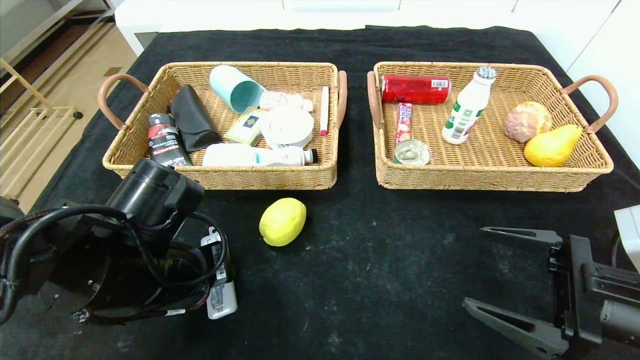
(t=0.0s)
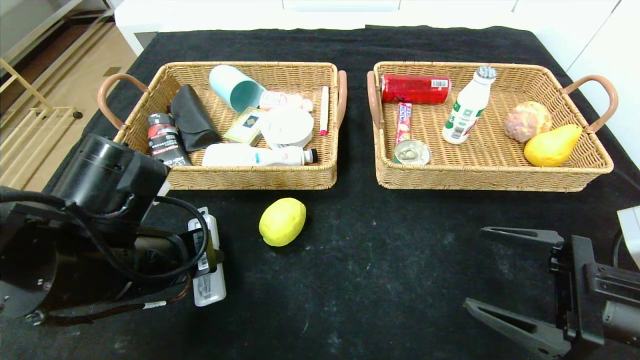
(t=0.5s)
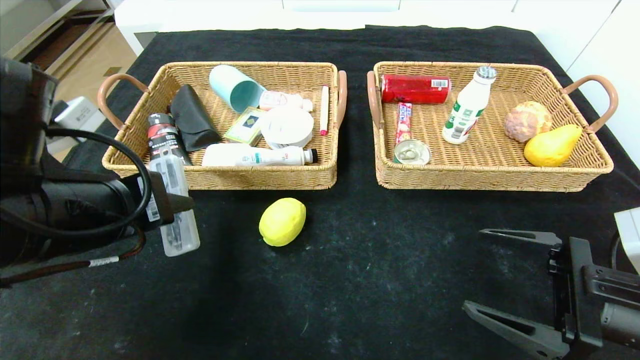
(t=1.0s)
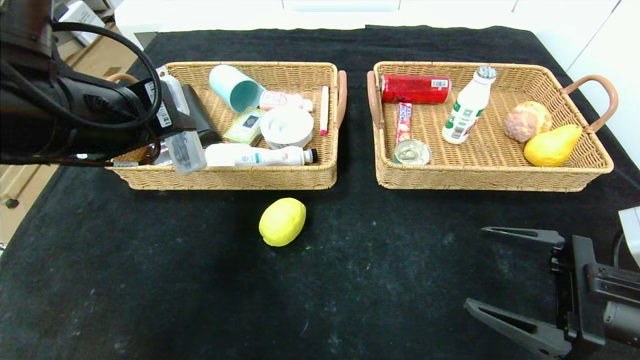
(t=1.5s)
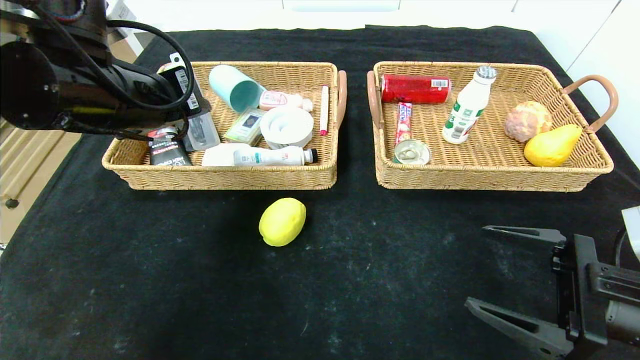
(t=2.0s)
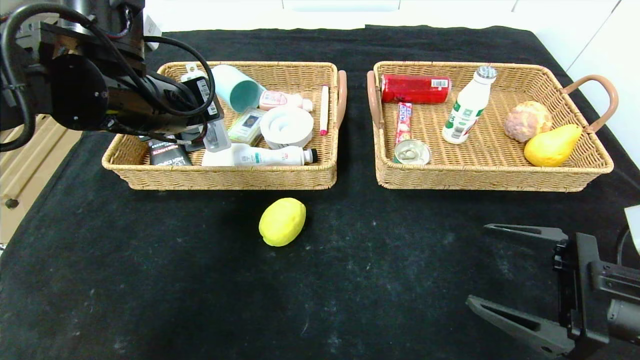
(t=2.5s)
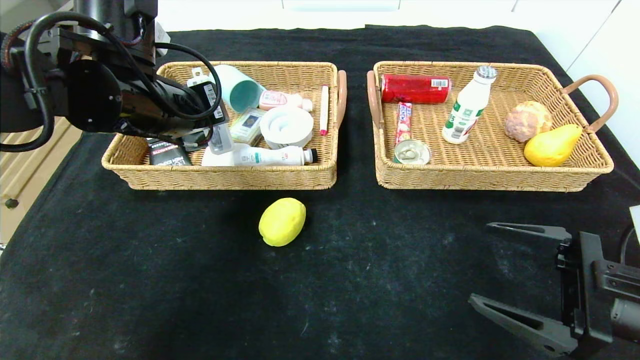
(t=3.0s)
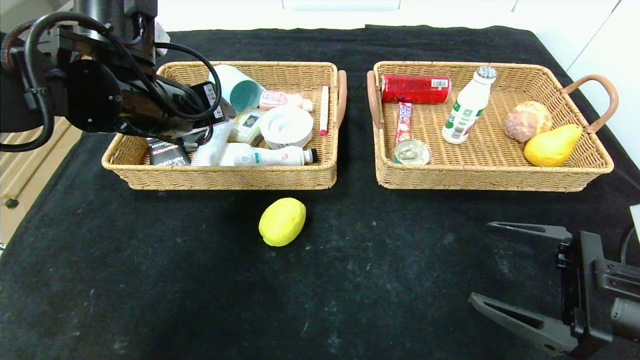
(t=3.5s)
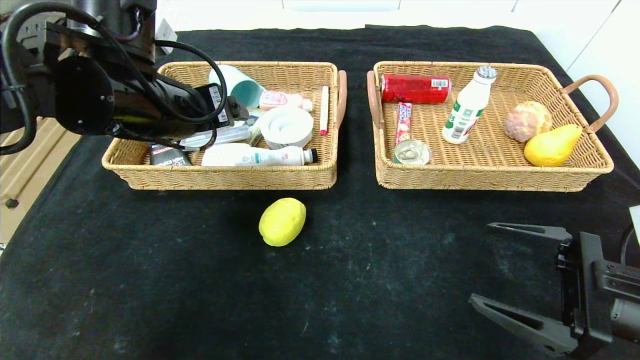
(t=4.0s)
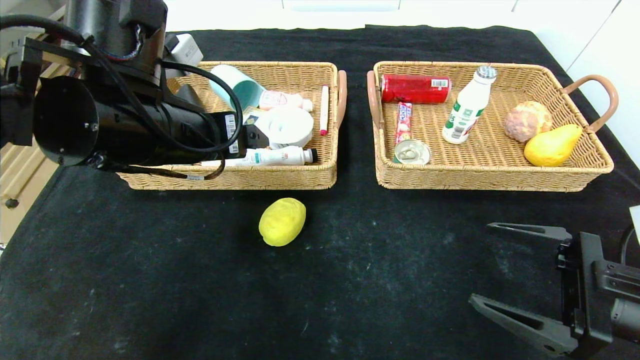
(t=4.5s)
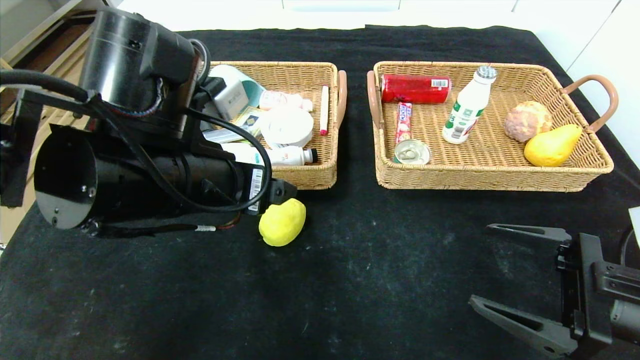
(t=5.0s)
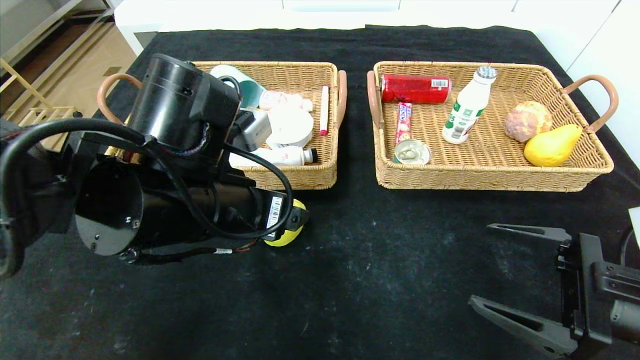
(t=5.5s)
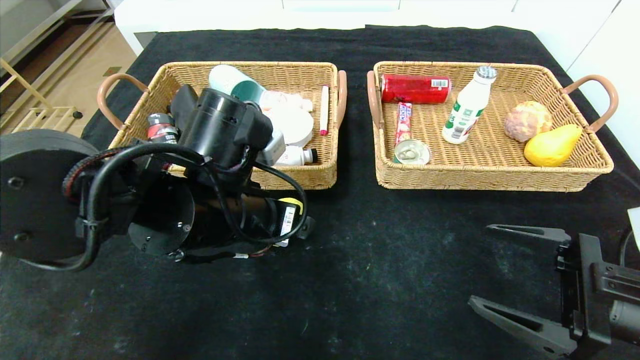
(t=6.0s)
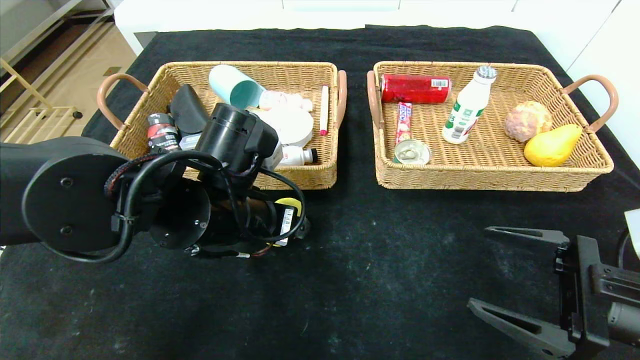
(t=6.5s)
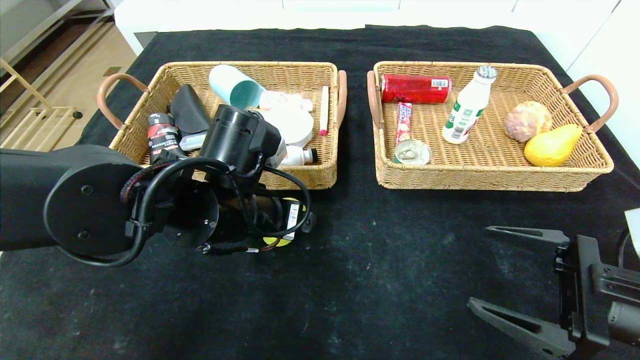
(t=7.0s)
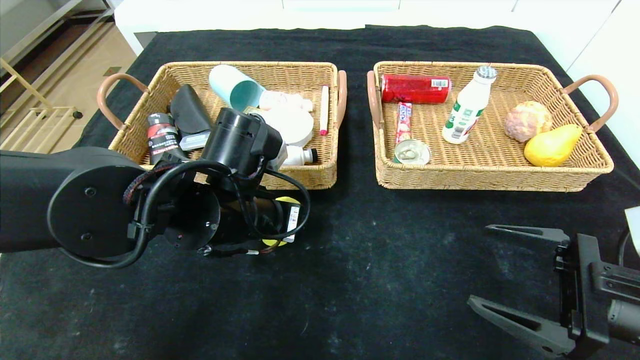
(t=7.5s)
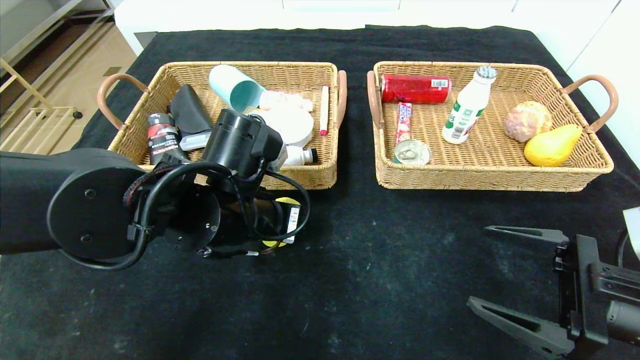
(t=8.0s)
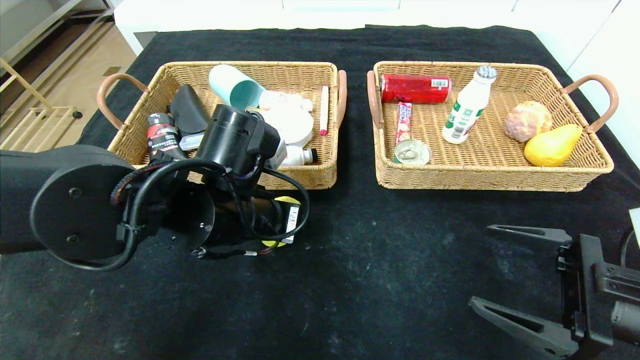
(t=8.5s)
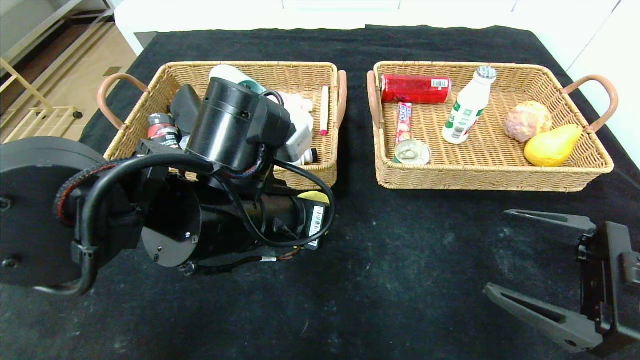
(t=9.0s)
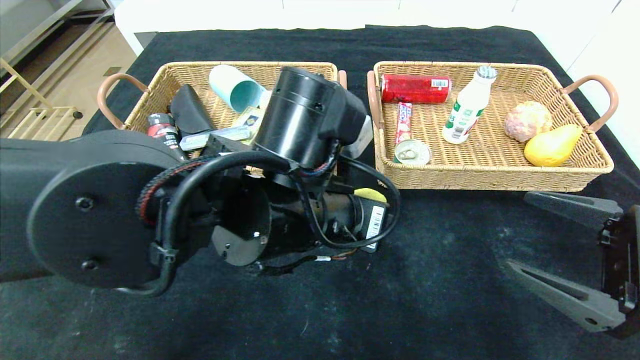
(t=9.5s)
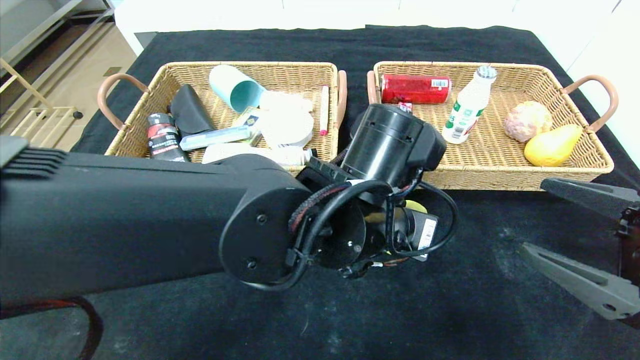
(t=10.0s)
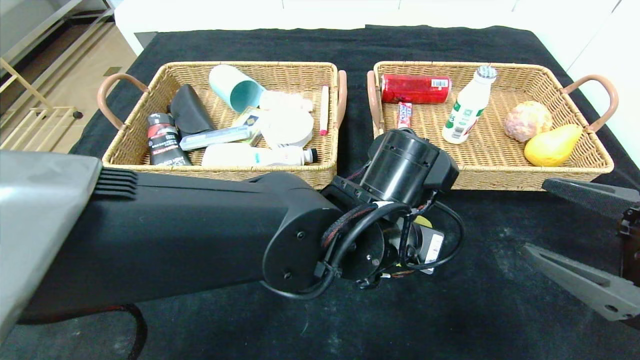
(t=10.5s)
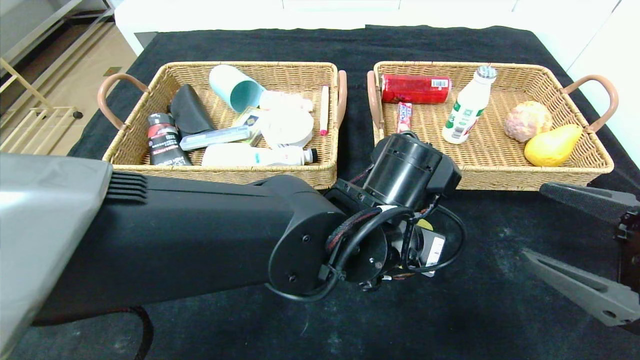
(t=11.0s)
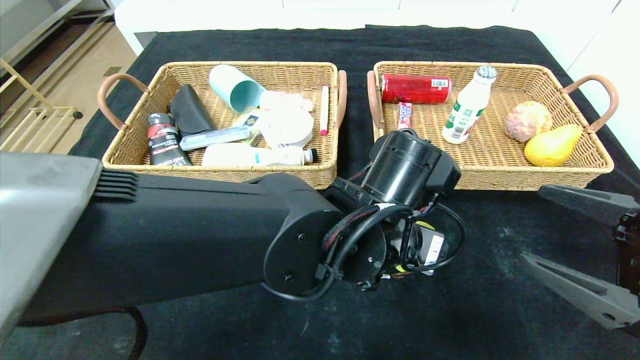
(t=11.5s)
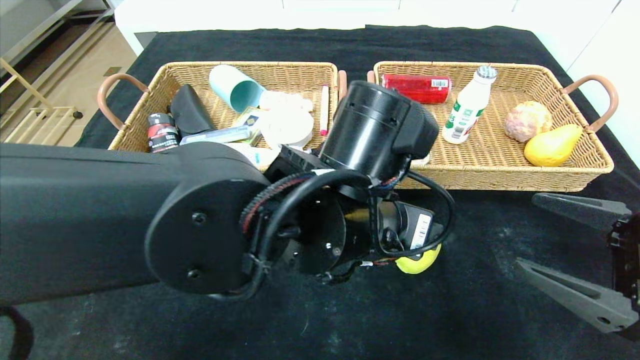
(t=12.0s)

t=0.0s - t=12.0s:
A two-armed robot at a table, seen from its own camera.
Step, t=0.0s - t=3.5s: Grasp the compass and put it in the left basket.
Step, t=4.0s - t=11.5s: Place the lemon and put it in the center of the table.
t=0.0s - t=2.0s: The left gripper moves upward and forward, some 15 cm.
t=2.0s - t=4.0s: The left gripper opens.
t=4.0s - t=6.0s: The left gripper is displaced downward, to the right and backward by approximately 10 cm.
t=6.0s - t=8.0s: The left gripper closes up.
t=8.0s - t=10.0s: The left gripper shifts some 15 cm to the right; the right gripper ends up approximately 5 cm from where it was.
t=10.0s - t=12.0s: The left gripper opens.

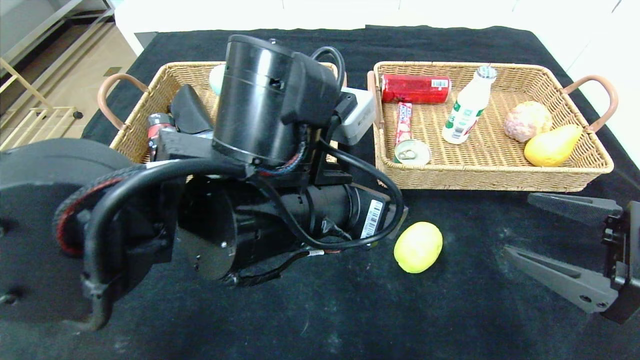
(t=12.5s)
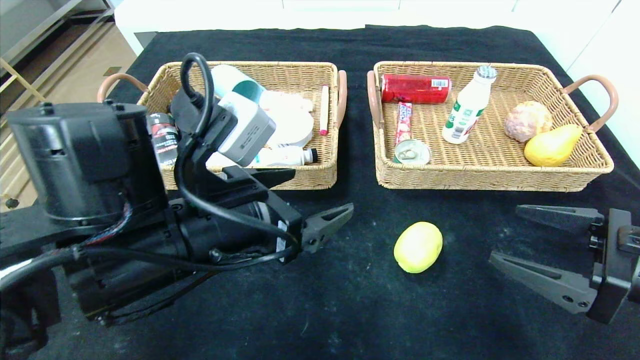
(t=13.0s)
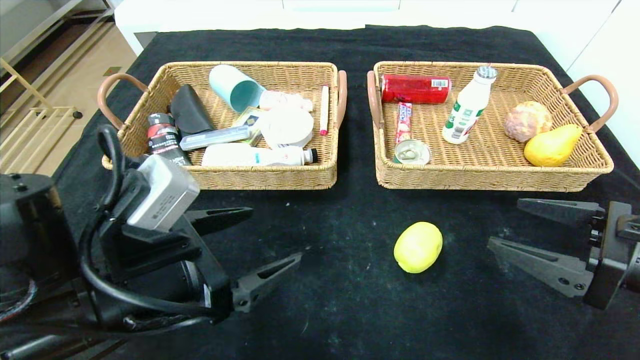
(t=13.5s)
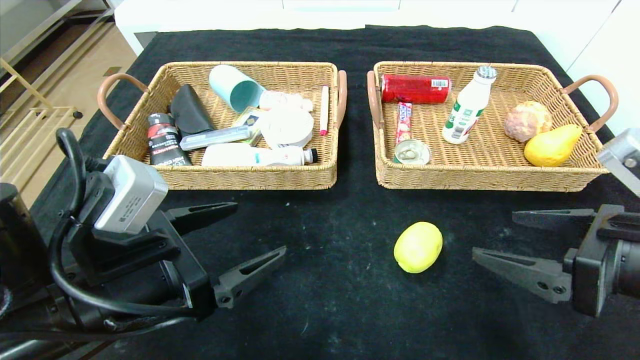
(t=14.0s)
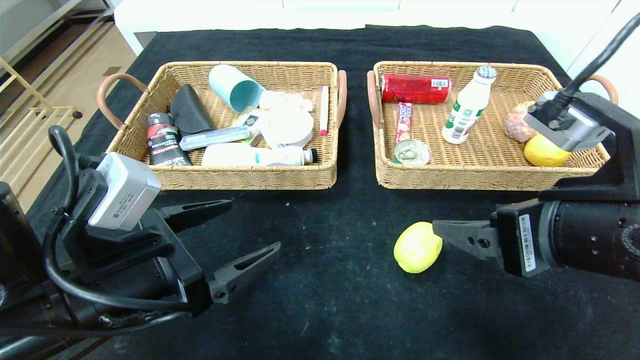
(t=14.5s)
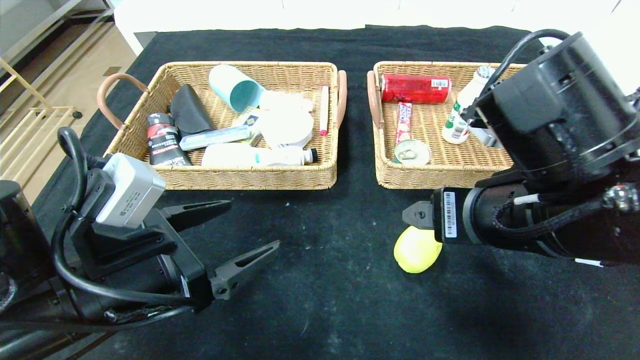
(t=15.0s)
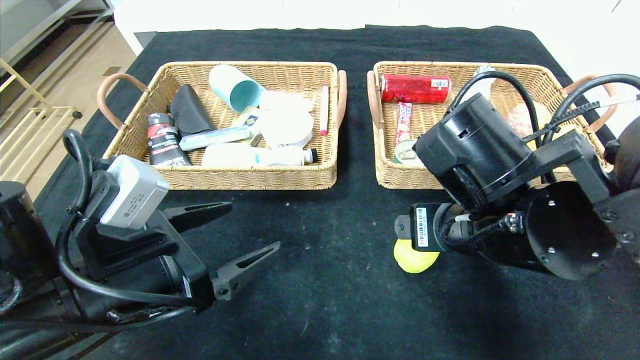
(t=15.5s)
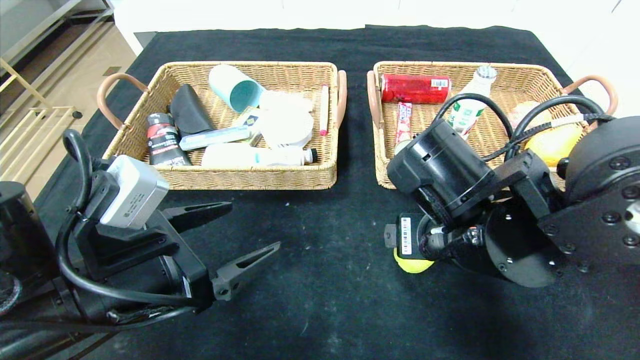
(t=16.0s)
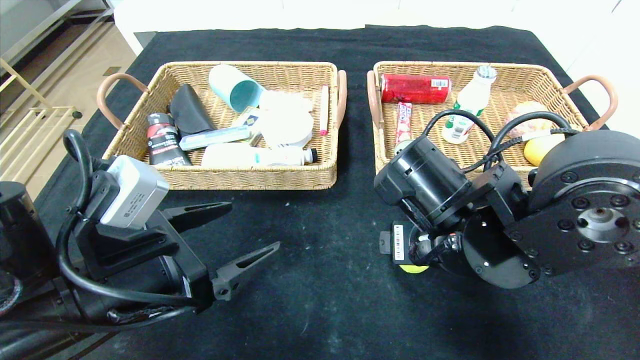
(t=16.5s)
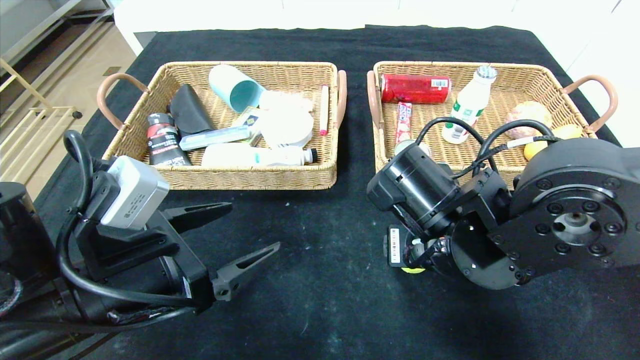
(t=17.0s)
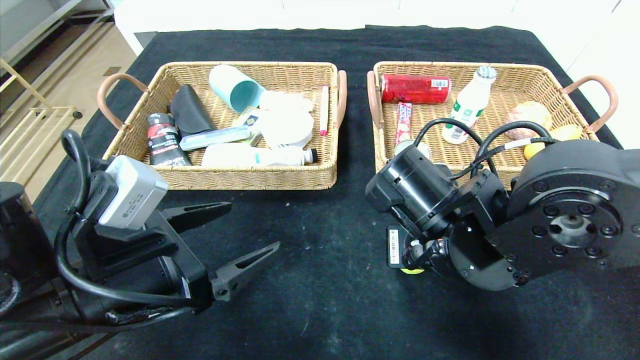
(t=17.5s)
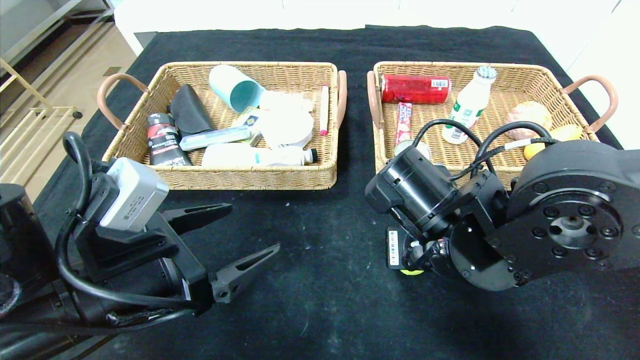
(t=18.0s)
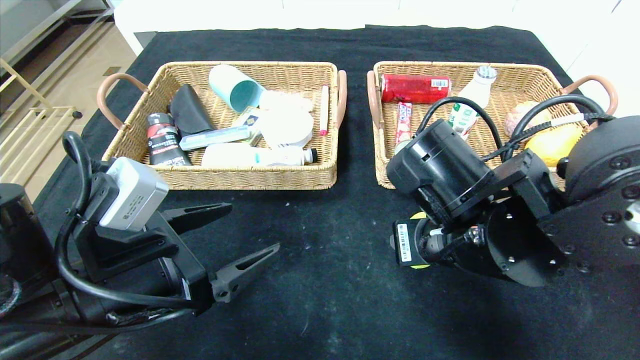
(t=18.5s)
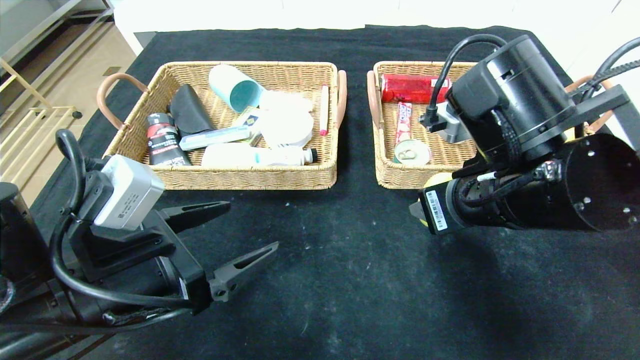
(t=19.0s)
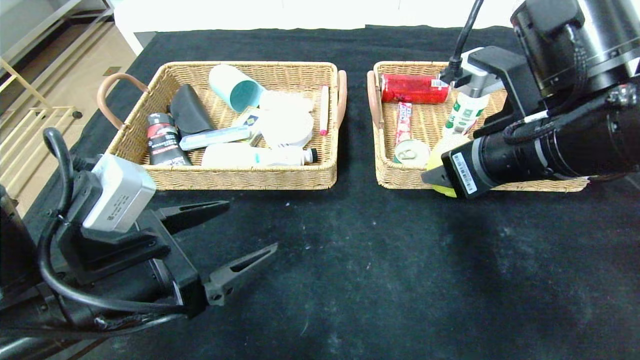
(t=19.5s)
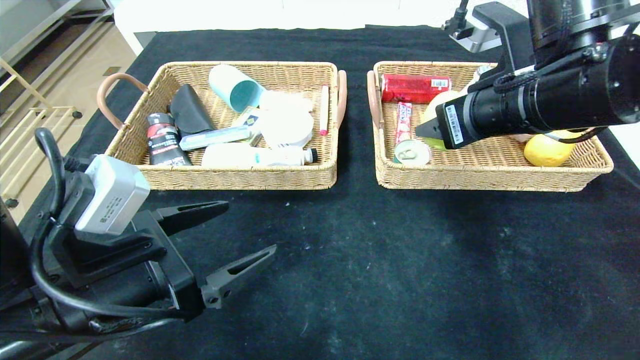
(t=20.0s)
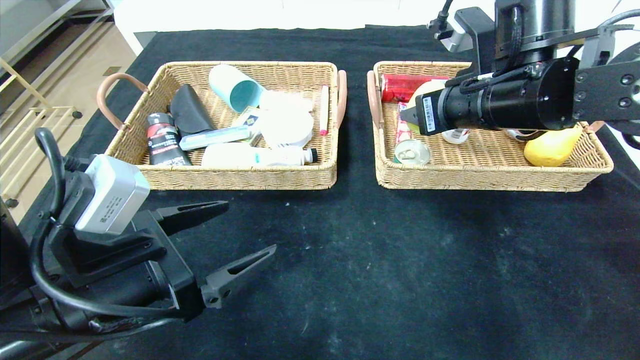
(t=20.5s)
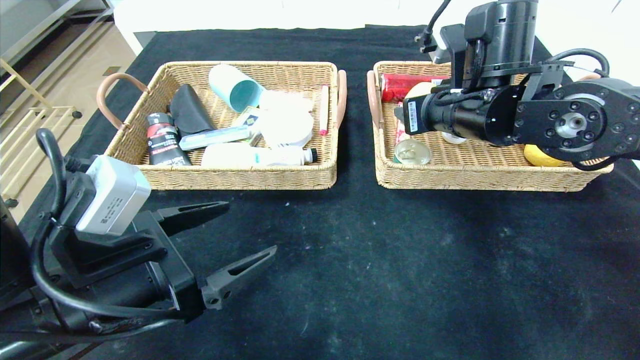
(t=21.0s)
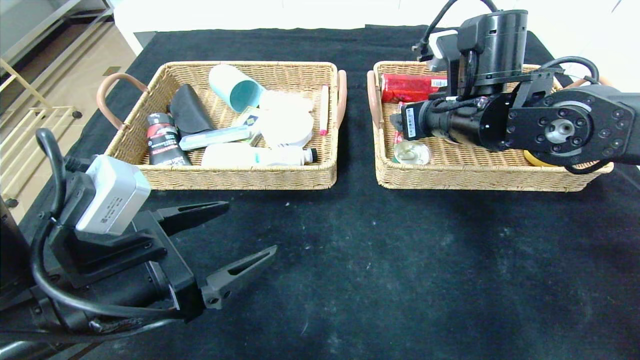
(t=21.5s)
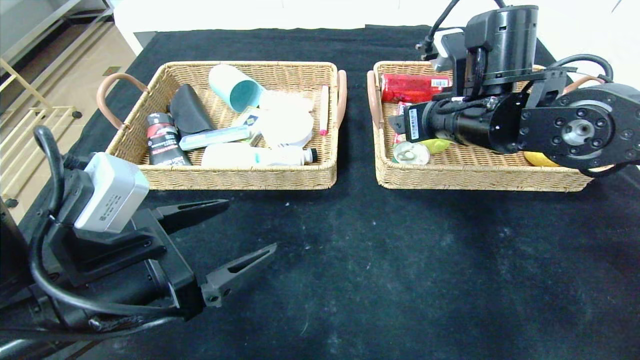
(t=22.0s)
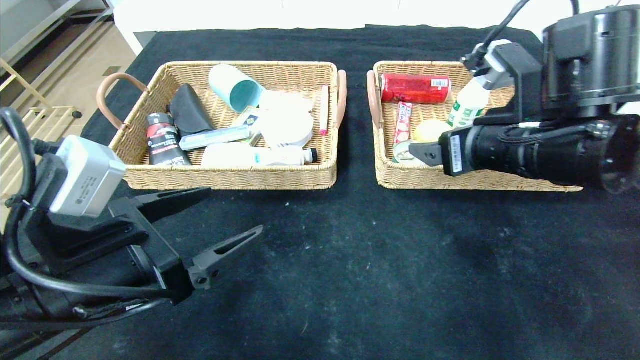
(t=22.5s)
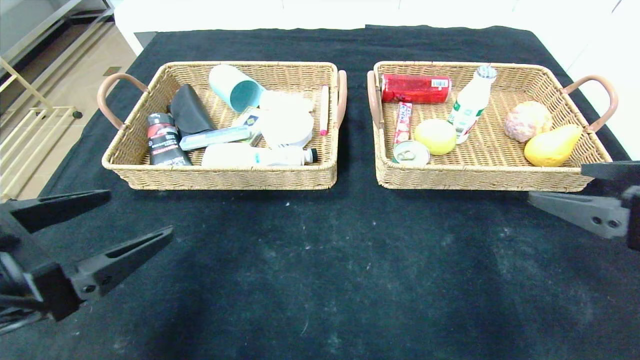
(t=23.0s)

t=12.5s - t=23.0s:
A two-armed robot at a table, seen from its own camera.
Step, t=12.5s - t=21.0s: Grasp the lemon and put it in the right basket.
t=12.5s - t=14.5s: The left gripper moves to the left, about 15 cm. Meanwhile the right gripper moves to the left and upward, some 15 cm.
t=14.5s - t=16.5s: The right gripper shifts about 15 cm to the left, forward and downward.
t=16.5s - t=19.0s: The right gripper is displaced upward by some 5 cm, and closes up.
t=19.0s - t=21.0s: The right gripper shifts approximately 10 cm forward.
t=21.0s - t=23.0s: The left gripper goes about 5 cm to the left, while the right gripper is displaced backward and to the right by some 25 cm, and opens.
